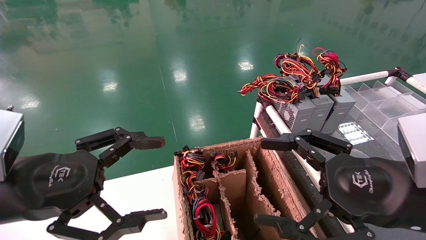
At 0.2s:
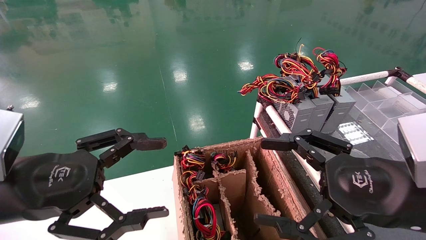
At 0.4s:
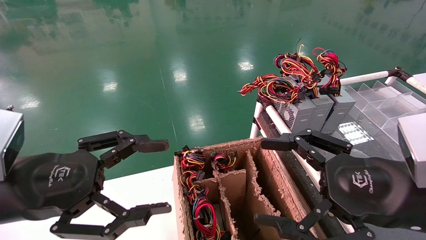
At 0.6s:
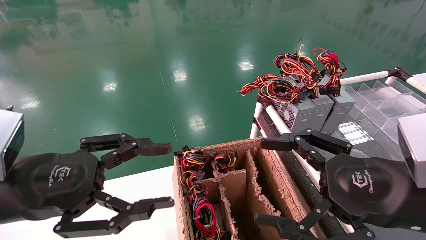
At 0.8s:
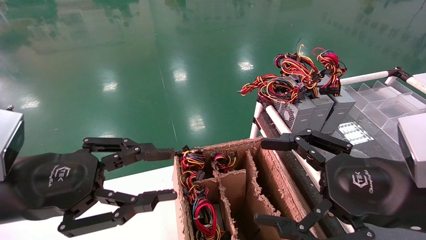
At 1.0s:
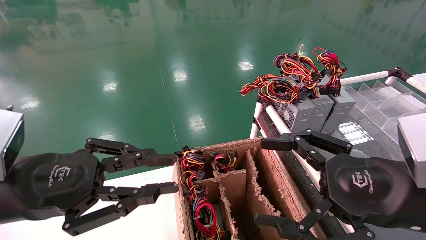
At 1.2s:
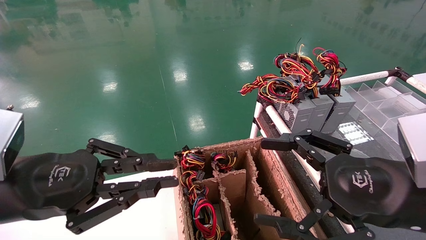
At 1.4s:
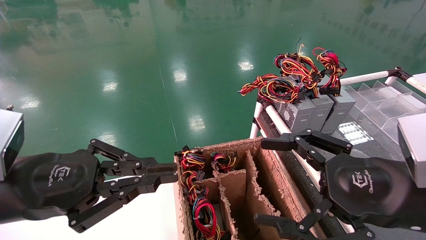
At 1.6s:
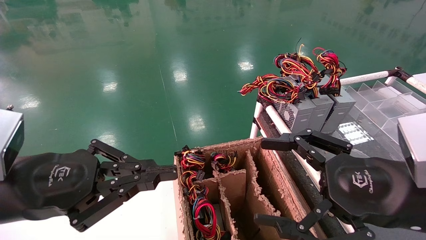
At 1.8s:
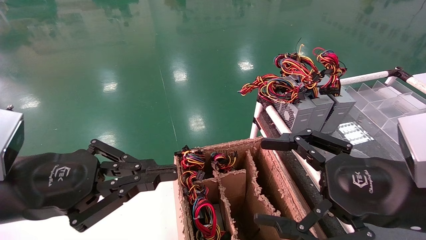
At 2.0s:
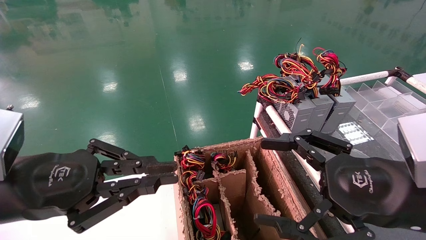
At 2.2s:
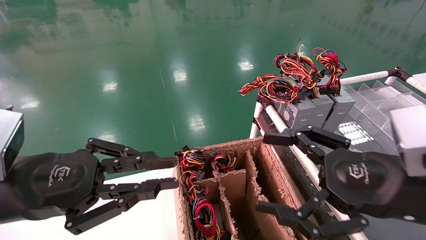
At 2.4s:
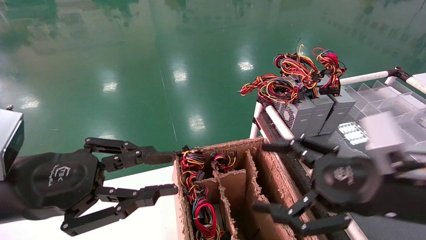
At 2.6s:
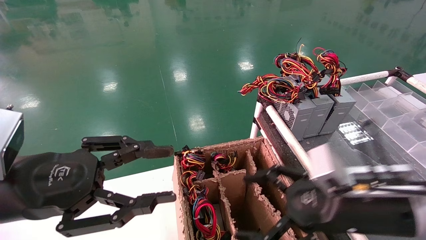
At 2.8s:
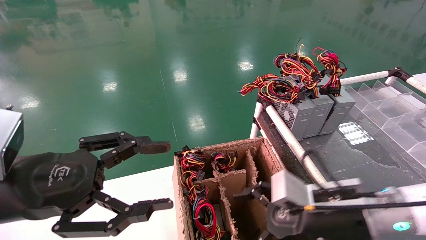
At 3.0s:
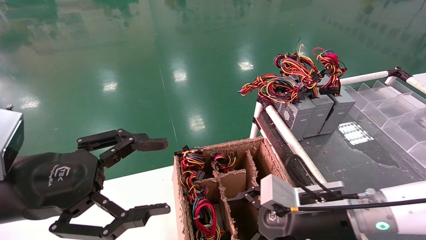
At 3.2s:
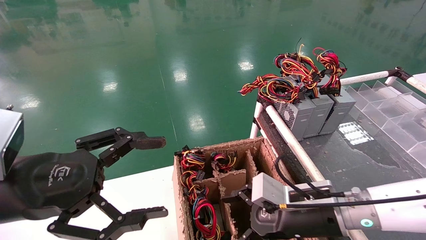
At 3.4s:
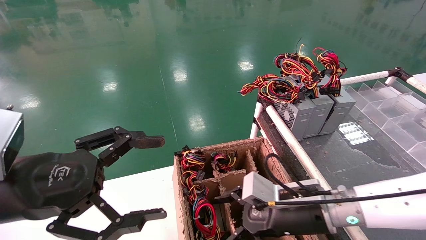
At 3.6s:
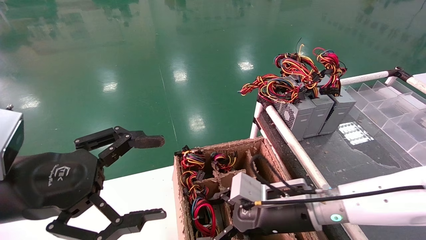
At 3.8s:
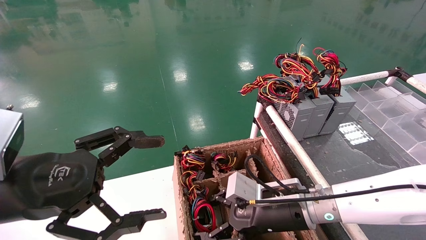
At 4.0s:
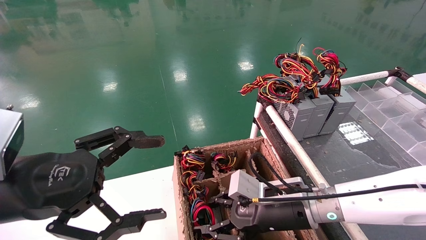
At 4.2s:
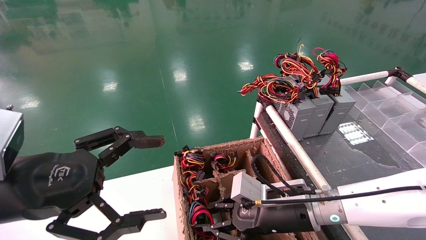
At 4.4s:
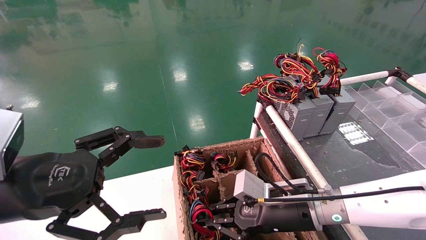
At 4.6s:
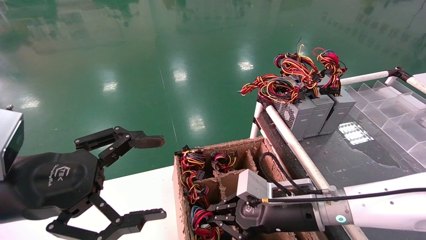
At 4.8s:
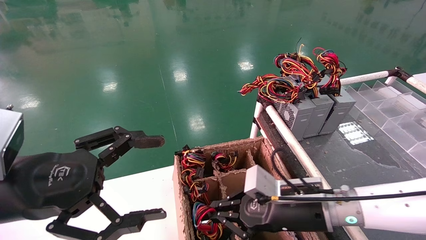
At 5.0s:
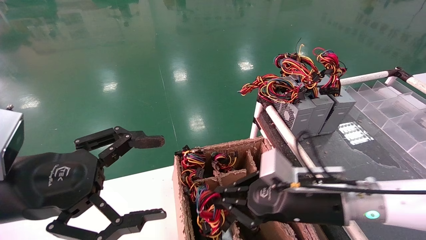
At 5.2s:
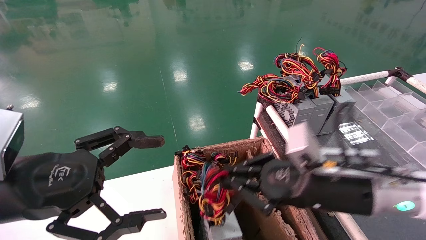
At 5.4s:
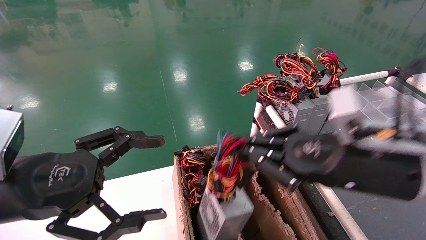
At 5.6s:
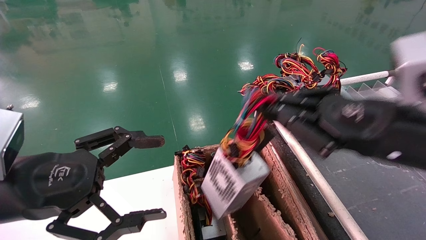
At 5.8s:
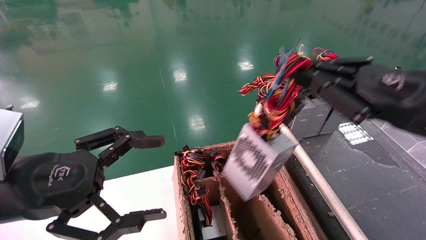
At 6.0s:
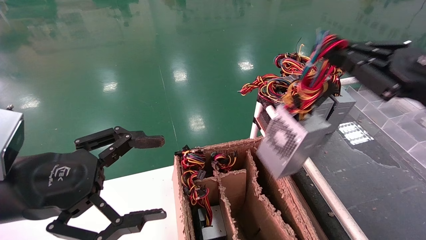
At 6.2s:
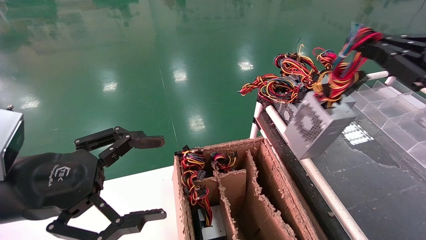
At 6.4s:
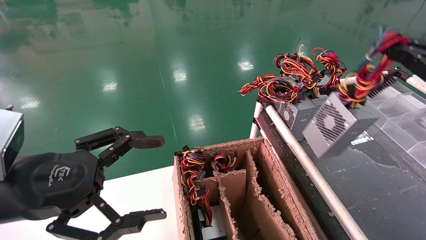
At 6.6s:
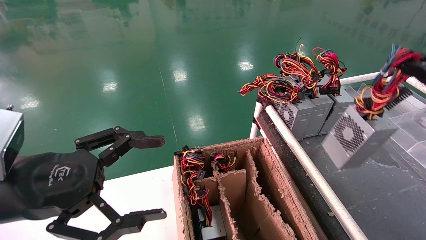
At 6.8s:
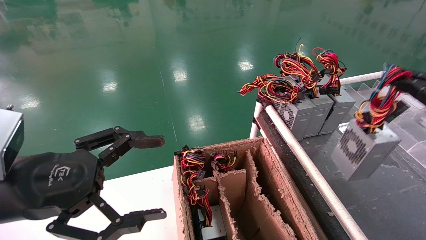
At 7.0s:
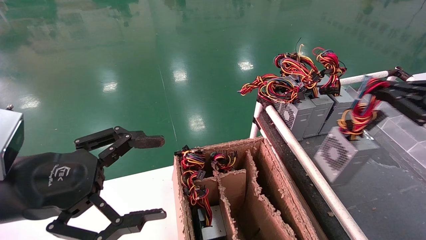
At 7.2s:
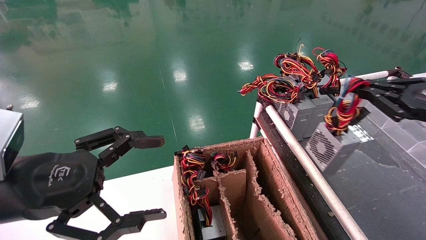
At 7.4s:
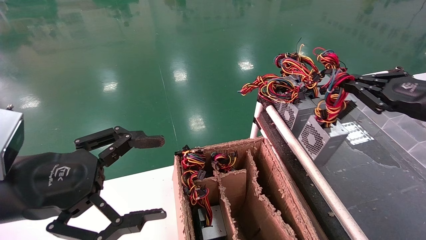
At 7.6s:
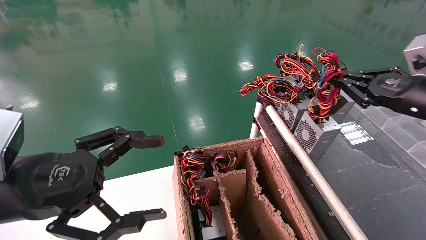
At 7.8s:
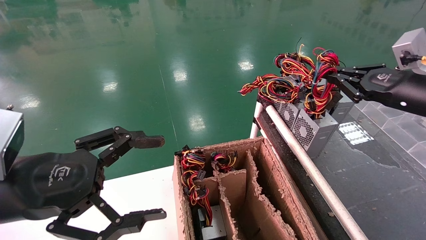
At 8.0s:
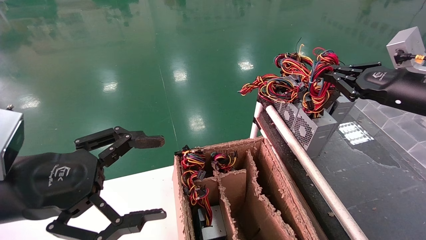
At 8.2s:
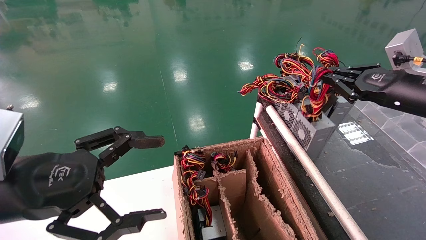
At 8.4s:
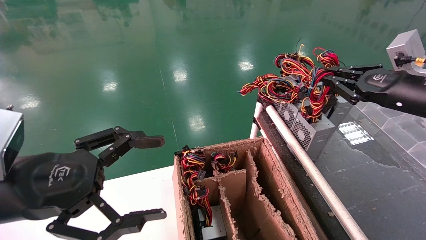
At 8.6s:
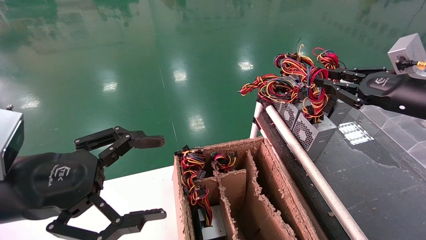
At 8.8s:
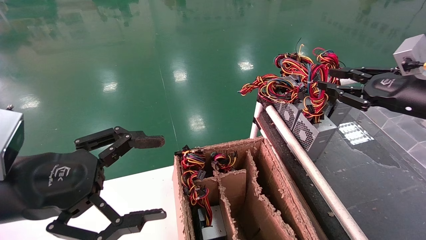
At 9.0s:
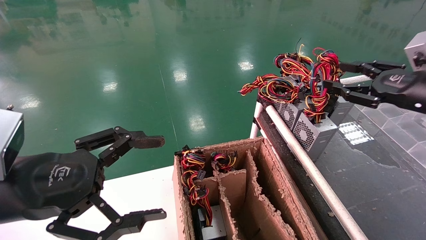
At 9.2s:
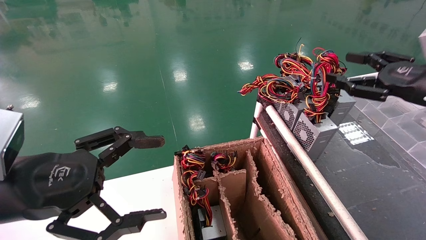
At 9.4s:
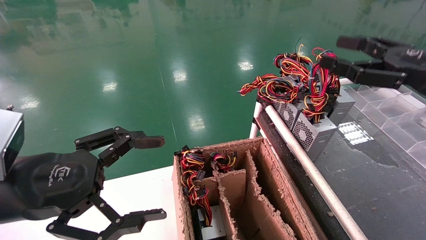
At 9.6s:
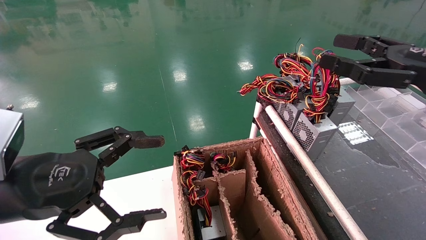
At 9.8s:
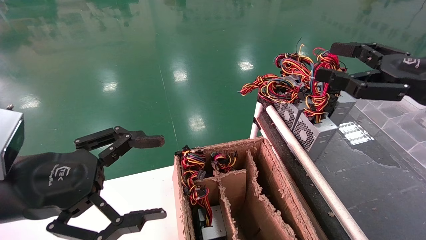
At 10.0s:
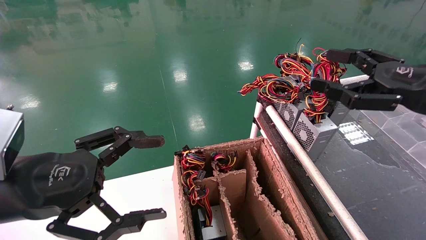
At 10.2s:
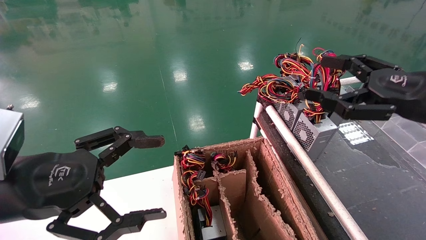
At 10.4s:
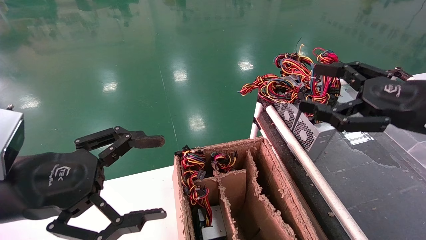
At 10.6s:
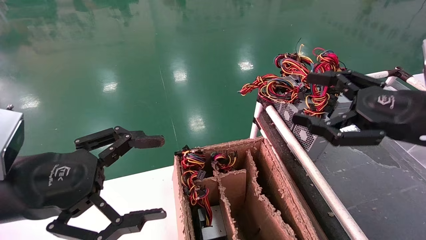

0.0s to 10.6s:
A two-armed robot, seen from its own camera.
Step, 1.6s to 4.6s: Grab and lift the power supply from the large box.
Step, 4.8s to 8.4s: Place the power supply on the operating table.
0.0s to 1.6s: The left gripper closes.
1.6s to 3.0s: The right gripper is displaced downward, forward and to the left by roughly 15 cm, while the left gripper opens up.
3.0s to 4.6s: The right gripper closes.
4.6s to 6.0s: The right gripper travels upward and to the right by some 25 cm.
6.0s to 7.6s: The right gripper is displaced forward and to the right by roughly 10 cm.
7.6s to 9.0s: The right gripper opens.
9.0s to 10.6s: The right gripper shifts some 10 cm backward and to the left, and opens.
